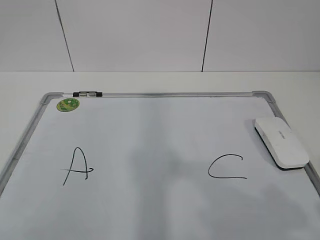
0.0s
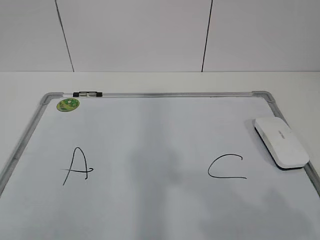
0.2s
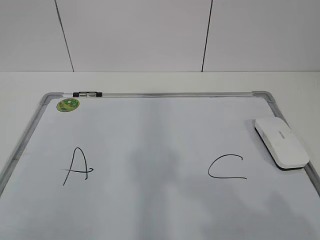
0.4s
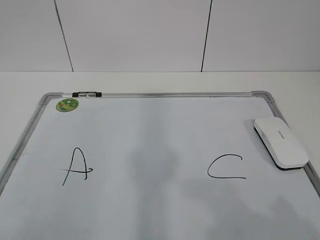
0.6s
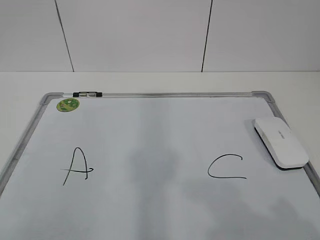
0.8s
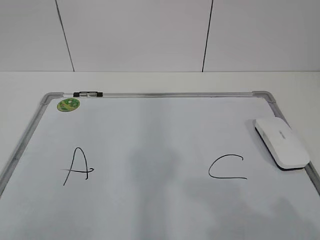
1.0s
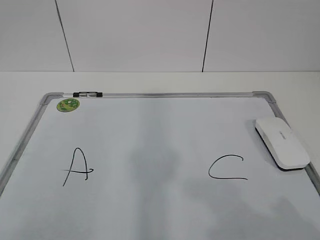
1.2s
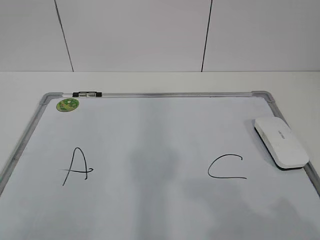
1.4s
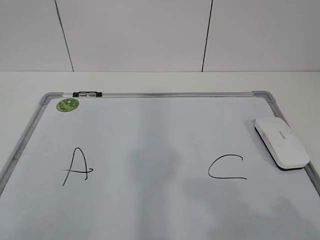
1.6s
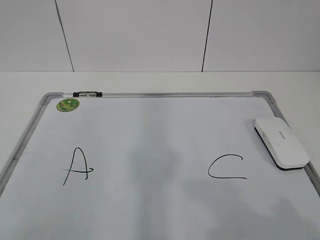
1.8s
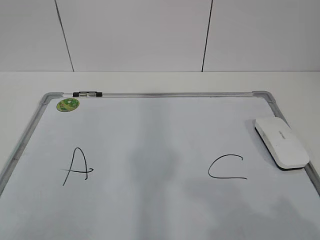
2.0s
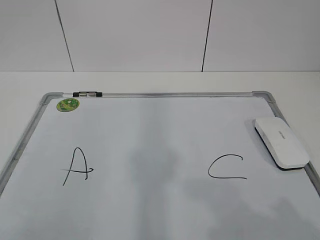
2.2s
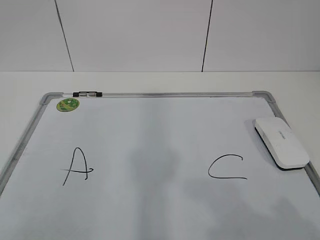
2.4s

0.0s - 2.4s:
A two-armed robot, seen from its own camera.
Task of the whole recording: pick up the eraser on the blackboard and erase the letter "B".
1.2s - 2.4s: Neither gripper changes place.

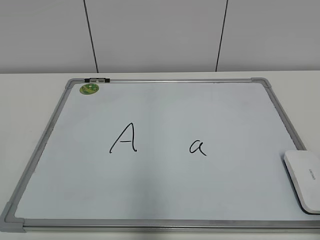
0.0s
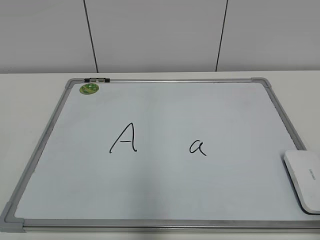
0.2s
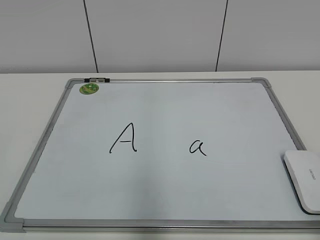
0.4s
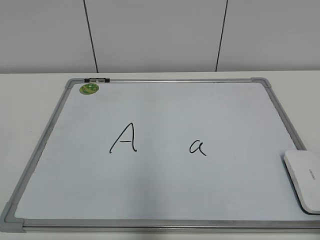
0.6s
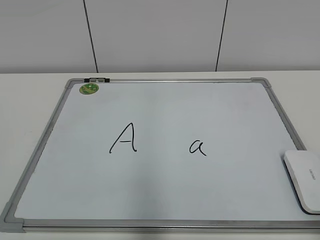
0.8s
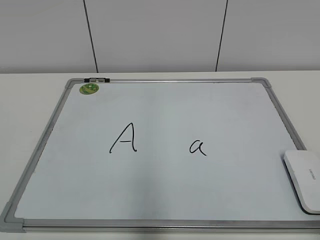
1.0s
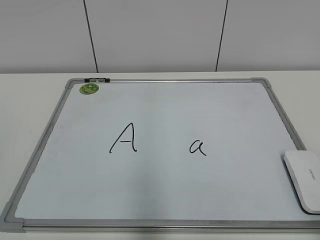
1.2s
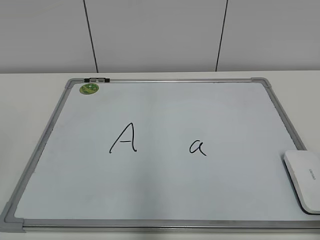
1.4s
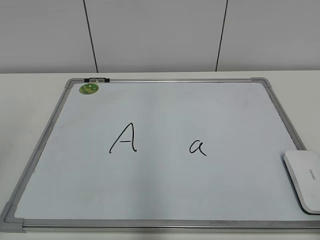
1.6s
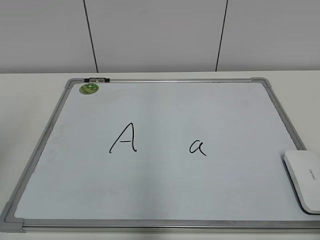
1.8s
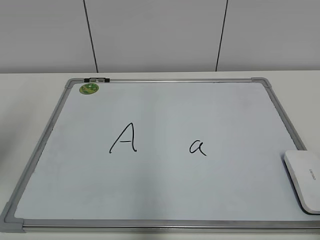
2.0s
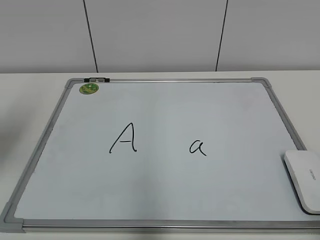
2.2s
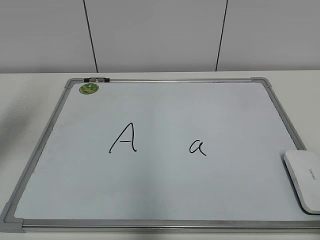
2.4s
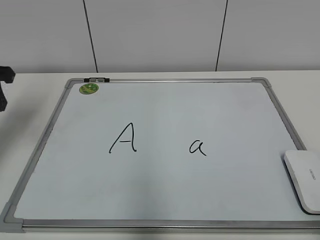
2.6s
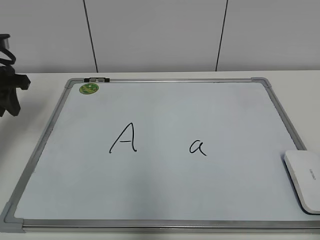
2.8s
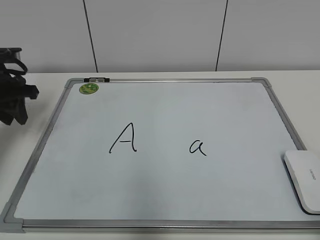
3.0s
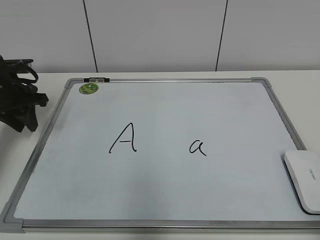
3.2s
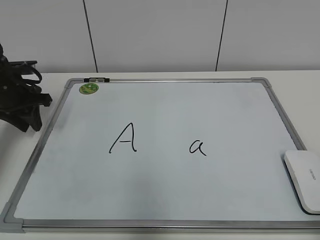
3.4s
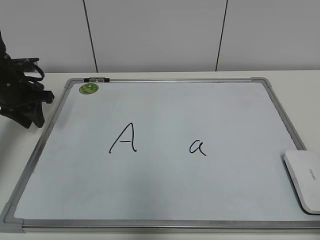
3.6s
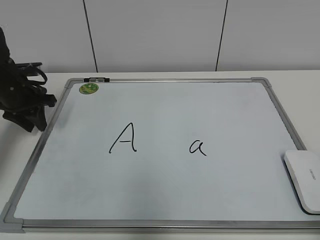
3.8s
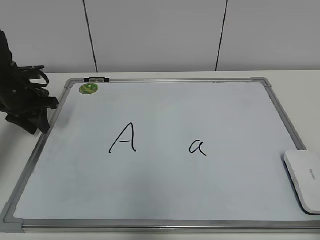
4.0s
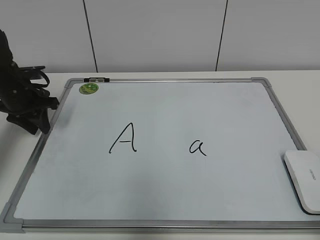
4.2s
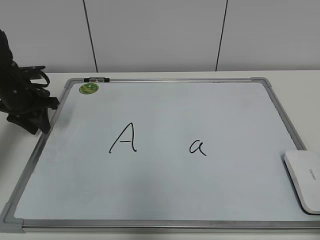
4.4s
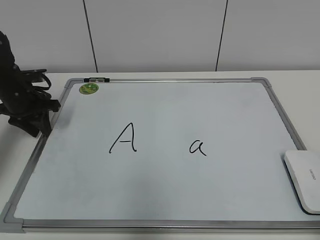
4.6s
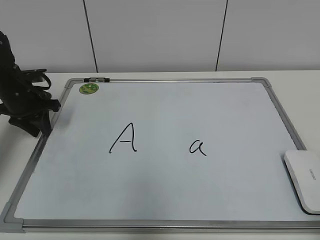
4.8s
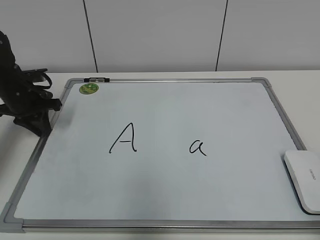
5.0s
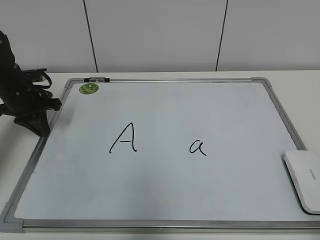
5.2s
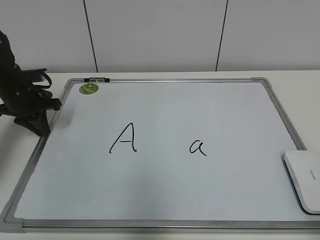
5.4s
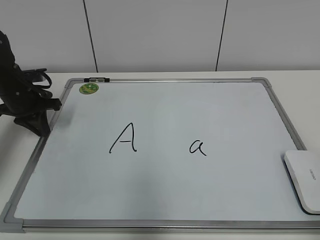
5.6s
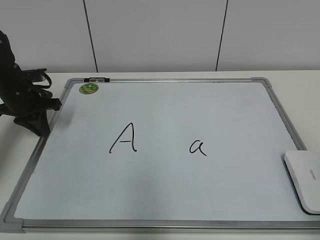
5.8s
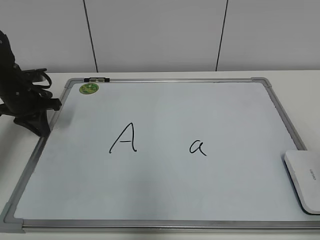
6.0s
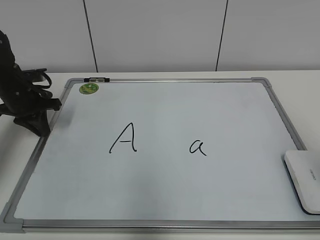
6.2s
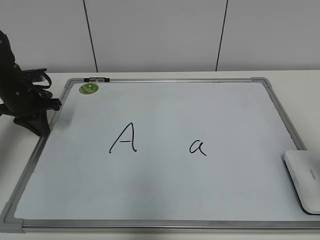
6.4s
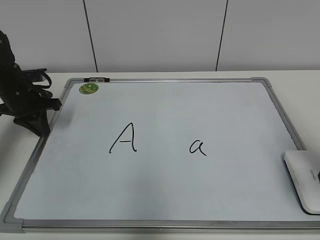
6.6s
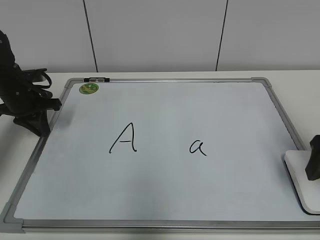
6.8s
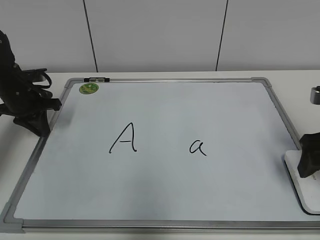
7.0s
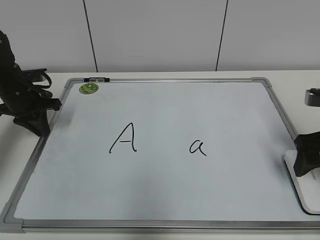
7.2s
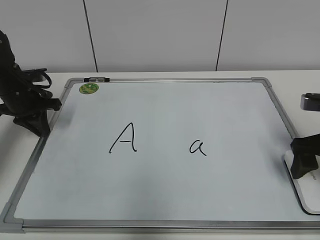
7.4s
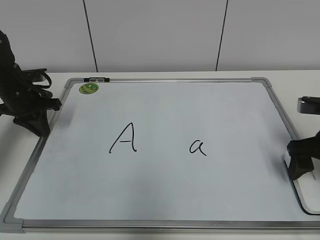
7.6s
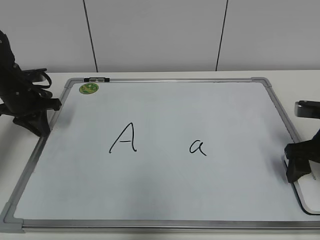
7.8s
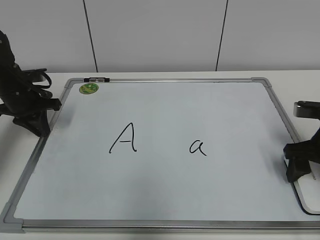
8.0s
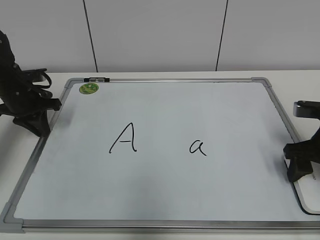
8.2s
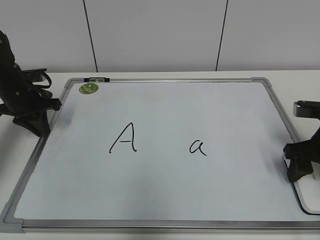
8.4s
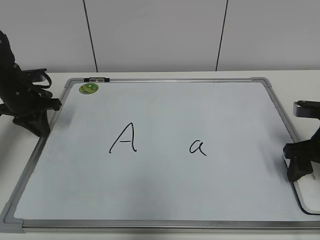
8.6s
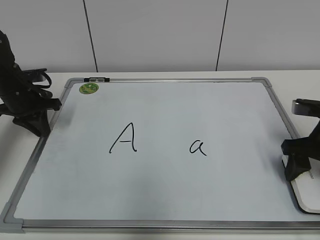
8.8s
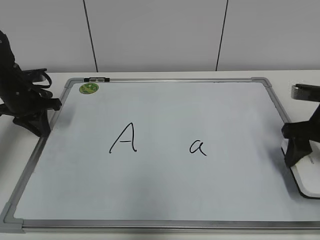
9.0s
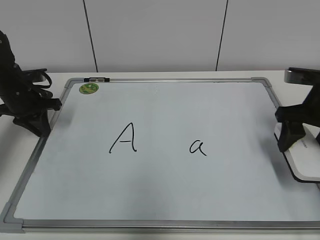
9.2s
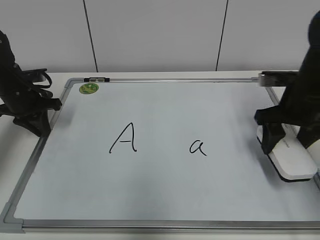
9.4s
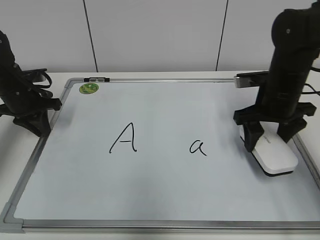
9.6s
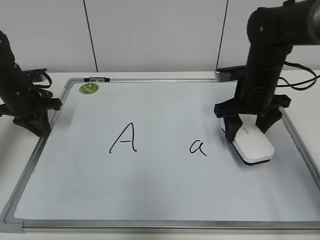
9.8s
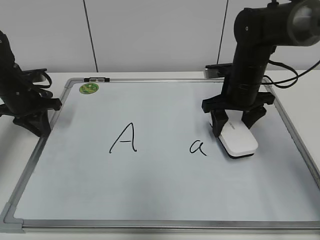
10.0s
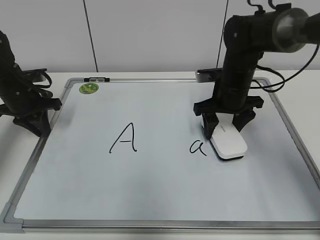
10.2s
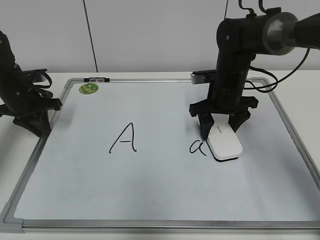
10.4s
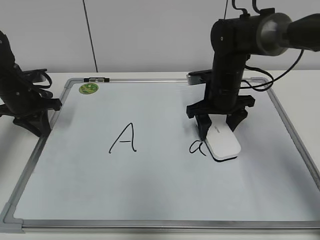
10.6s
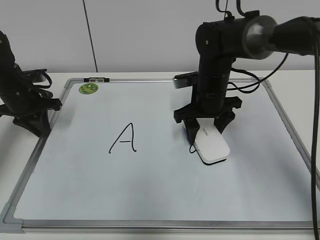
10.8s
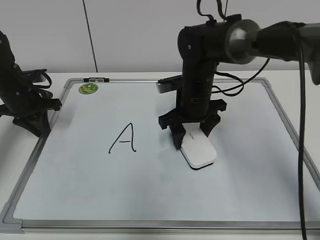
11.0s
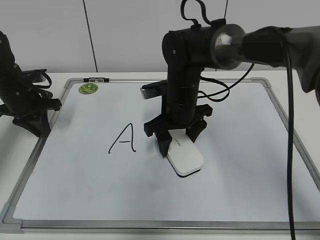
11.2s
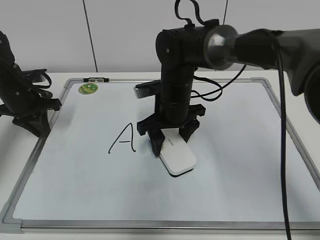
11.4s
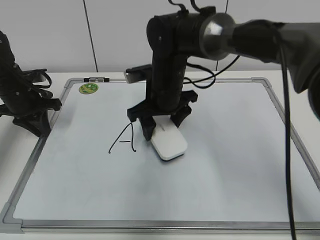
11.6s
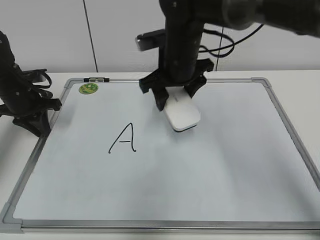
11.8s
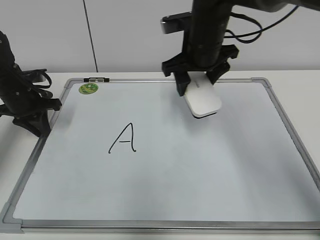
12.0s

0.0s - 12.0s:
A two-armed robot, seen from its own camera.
Task of the whole recording: pick up the eraser on the blackboard and erase the letter "a".
Step, 0.0s - 4.8s: Hold the drawing board steady with your left hand.
Step, 5.0s - 8.6s: Grab the eraser with your right hand.
Step, 8.8s - 11.4s: Erase the letter a with your right hand.
1.6s - 3.0s: The left gripper heads forward, covering roughly 30 cm.
3.0s - 4.4s: The left gripper shifts about 5 cm downward.
4.4s - 6.0s: The left gripper closes its fingers.
6.0s - 7.6s: The right gripper shifts about 20 cm forward and downward, and opens its fingers.
7.6s - 9.0s: The right gripper closes its fingers.
9.0s - 10.4s: The right gripper is displaced to the left and forward by about 20 cm.
10.4s - 12.0s: The right gripper moves upward and to the left, some 10 cm.

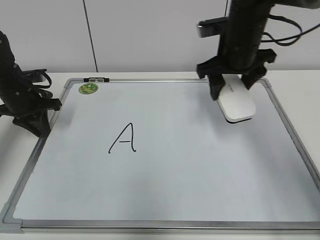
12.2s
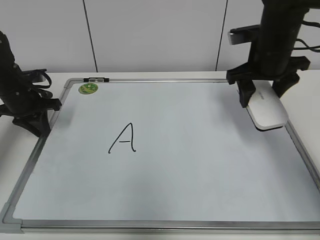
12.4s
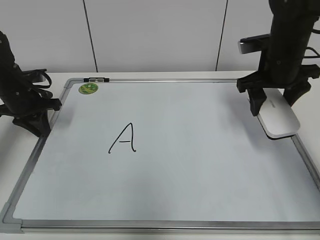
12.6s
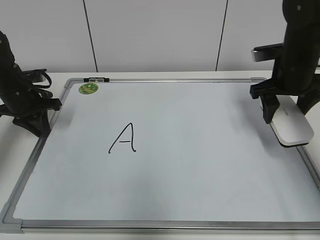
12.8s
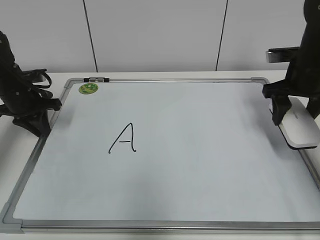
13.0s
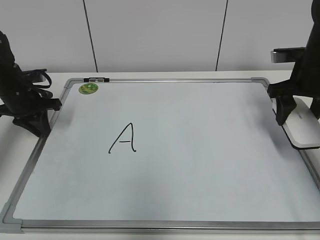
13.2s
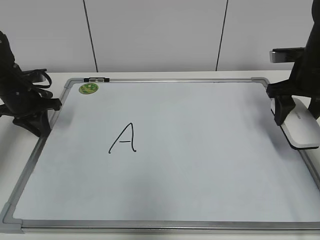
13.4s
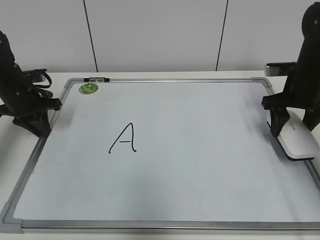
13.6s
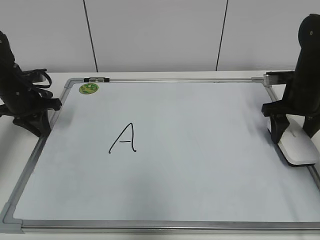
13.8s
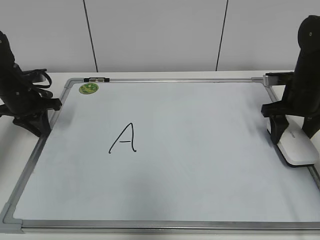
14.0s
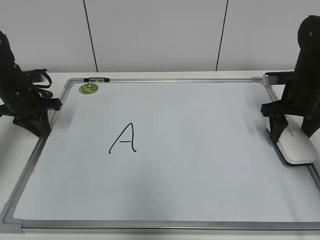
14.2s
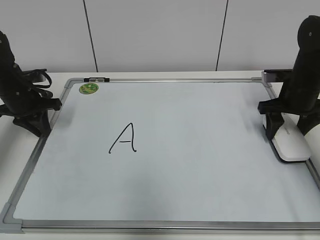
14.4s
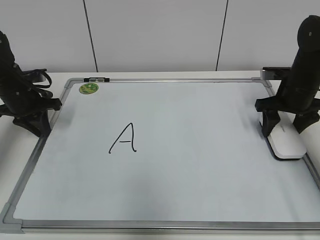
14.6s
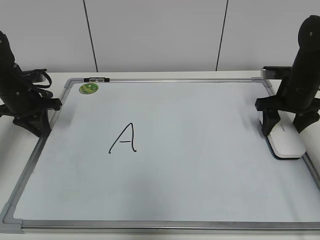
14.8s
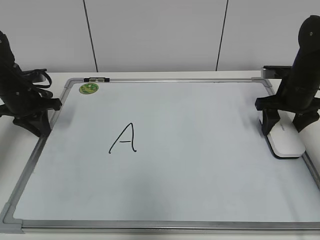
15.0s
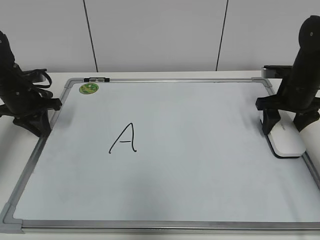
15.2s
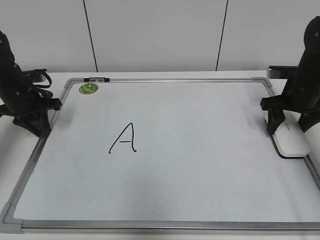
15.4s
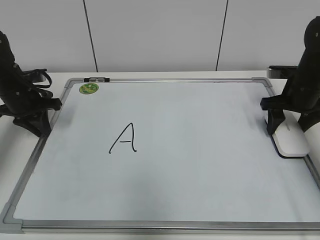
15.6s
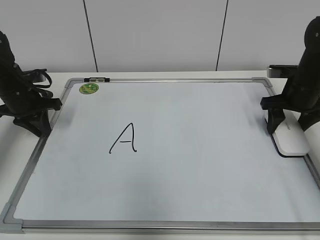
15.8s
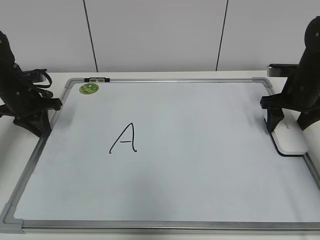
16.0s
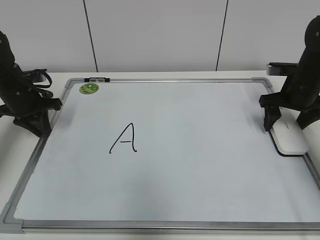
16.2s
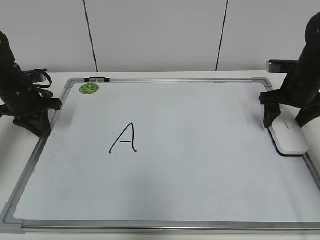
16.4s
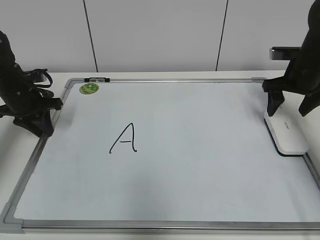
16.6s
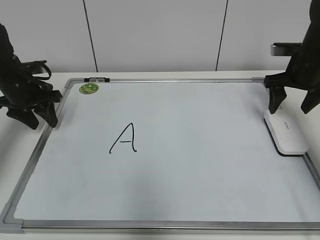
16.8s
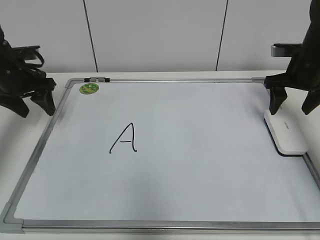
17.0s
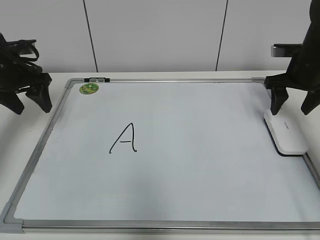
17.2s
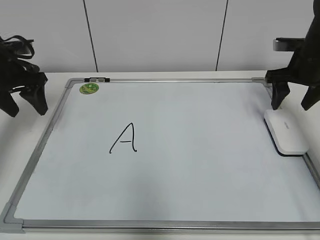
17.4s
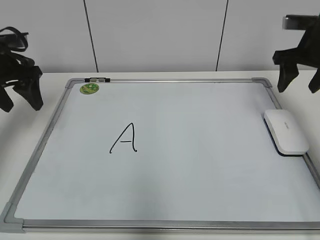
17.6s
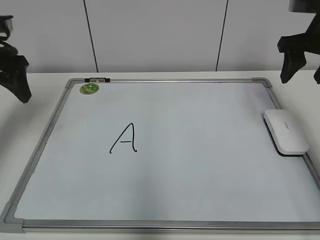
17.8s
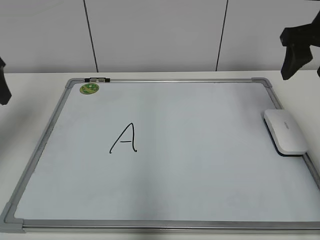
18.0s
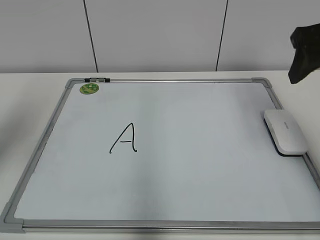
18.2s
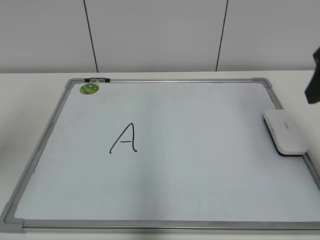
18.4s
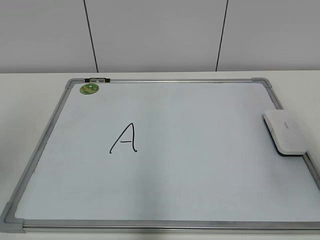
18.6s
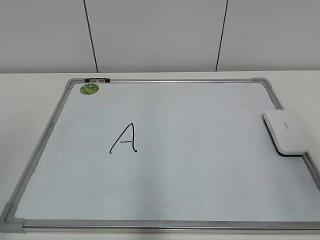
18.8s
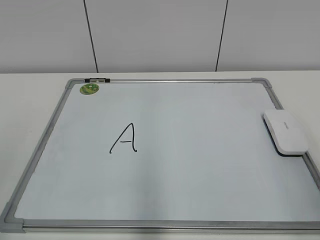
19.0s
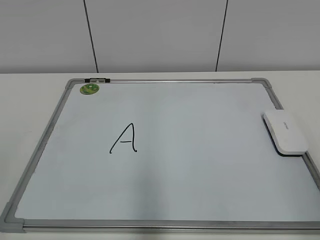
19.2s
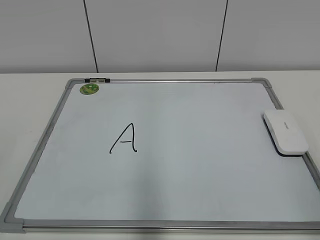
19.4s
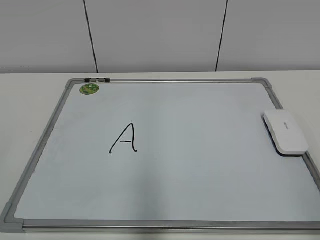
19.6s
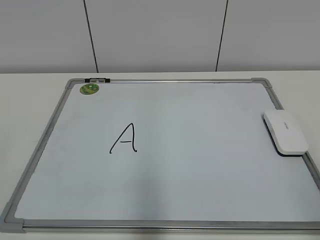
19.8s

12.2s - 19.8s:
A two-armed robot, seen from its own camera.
Task of the whole recording: pick up the eraser on the blackboard and erase the letter "a".
Step, 12.2s - 16.2s: Put down the eraser with your right hand.
12.2s - 13.8s: The right gripper heads to the right and downward, covering some 15 cm.
13.8s - 15.2s: The grippers move only a little.
15.2s - 16.8s: The left gripper opens its fingers, while the right gripper opens up.
16.8s - 18.2s: The two grippers go some 20 cm upward and backward. The right gripper closes its fingers.
18.2s - 19.8s: Both grippers travel together backward, roughly 25 cm.
